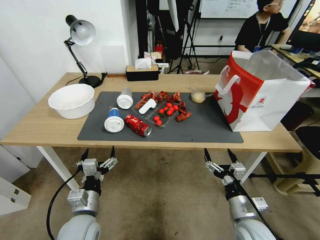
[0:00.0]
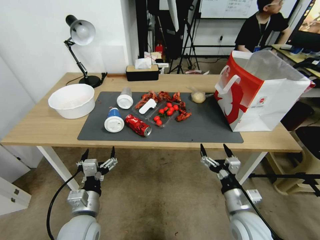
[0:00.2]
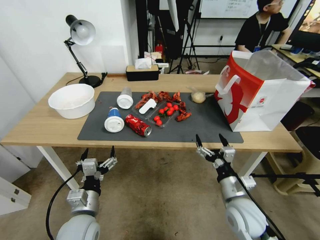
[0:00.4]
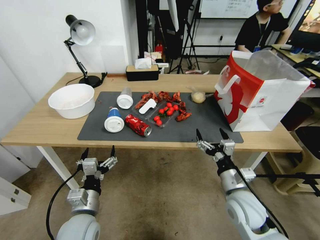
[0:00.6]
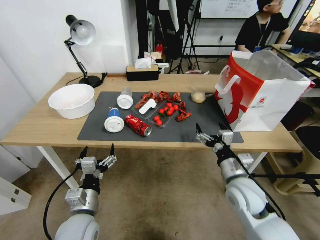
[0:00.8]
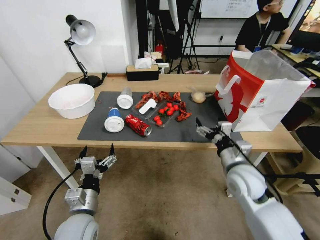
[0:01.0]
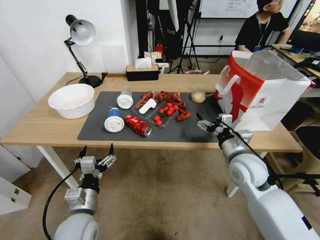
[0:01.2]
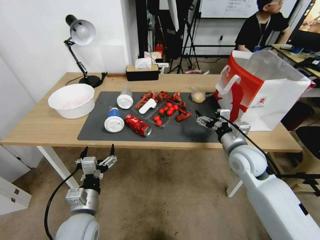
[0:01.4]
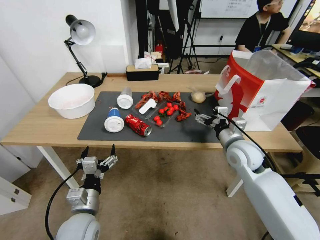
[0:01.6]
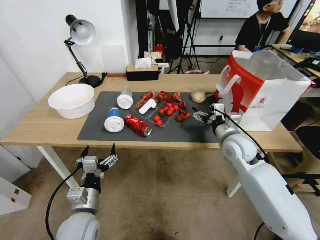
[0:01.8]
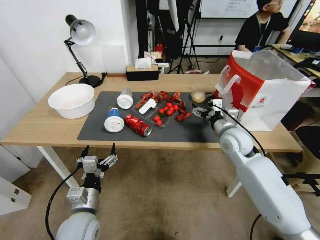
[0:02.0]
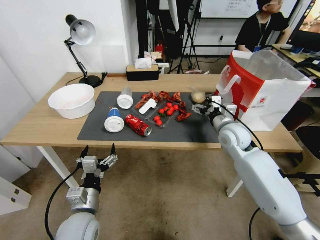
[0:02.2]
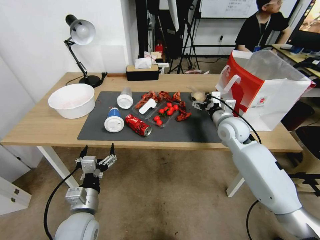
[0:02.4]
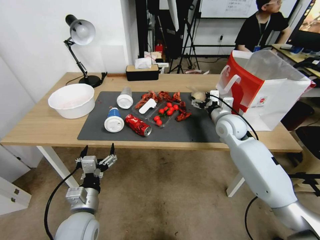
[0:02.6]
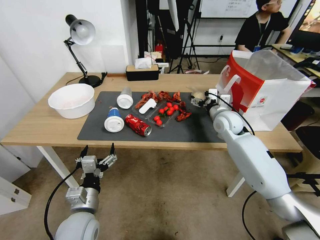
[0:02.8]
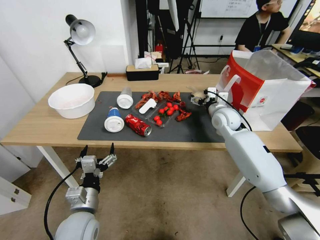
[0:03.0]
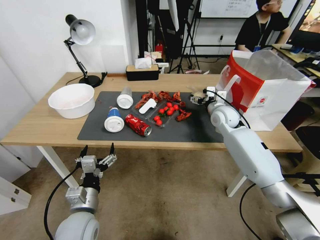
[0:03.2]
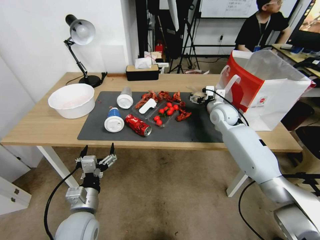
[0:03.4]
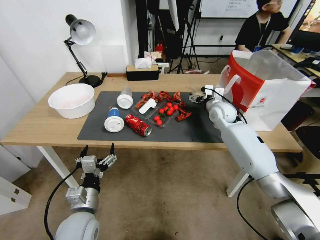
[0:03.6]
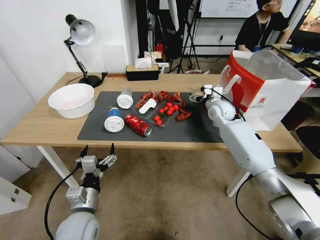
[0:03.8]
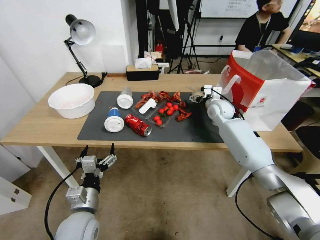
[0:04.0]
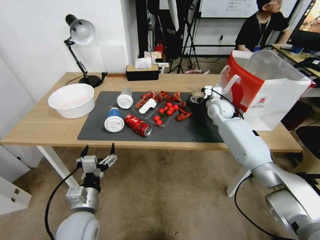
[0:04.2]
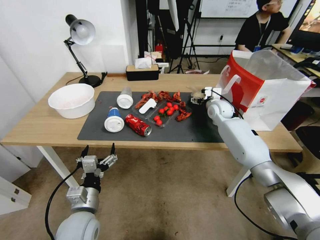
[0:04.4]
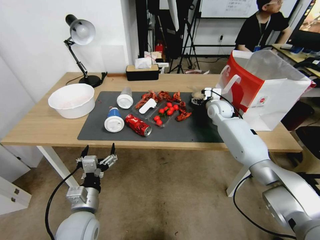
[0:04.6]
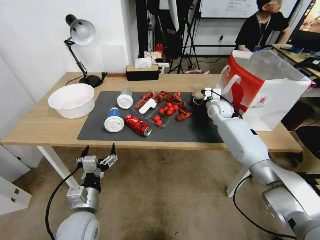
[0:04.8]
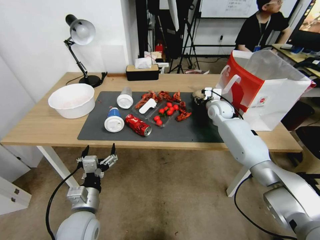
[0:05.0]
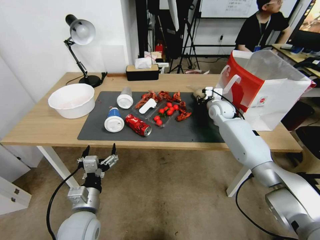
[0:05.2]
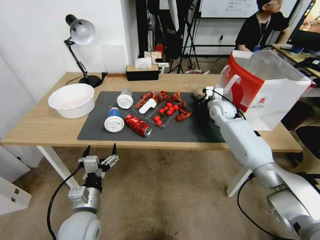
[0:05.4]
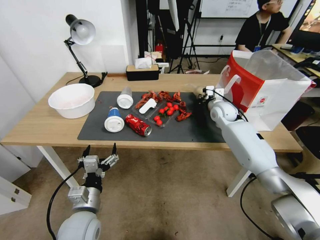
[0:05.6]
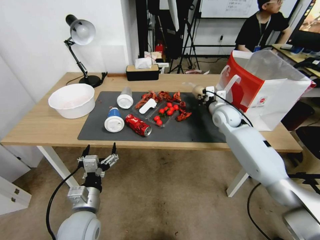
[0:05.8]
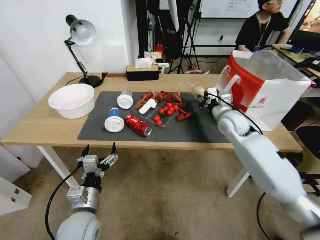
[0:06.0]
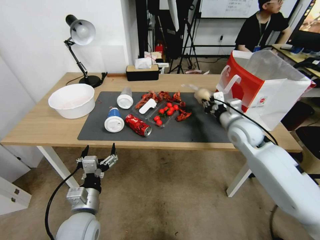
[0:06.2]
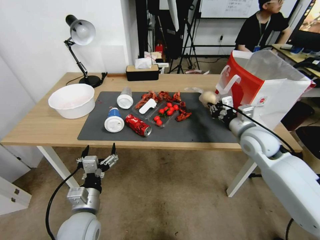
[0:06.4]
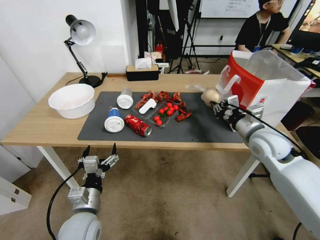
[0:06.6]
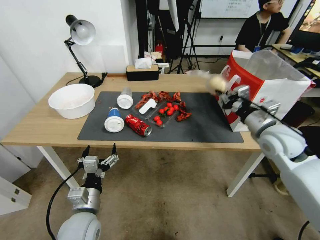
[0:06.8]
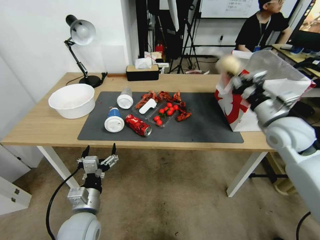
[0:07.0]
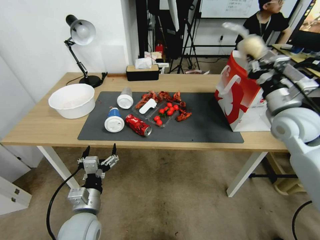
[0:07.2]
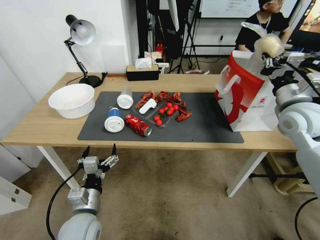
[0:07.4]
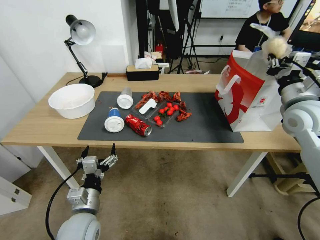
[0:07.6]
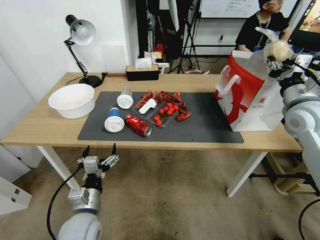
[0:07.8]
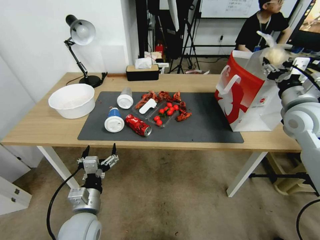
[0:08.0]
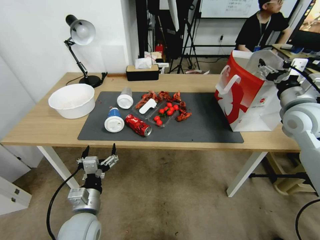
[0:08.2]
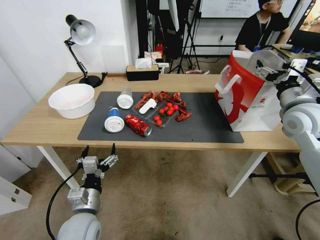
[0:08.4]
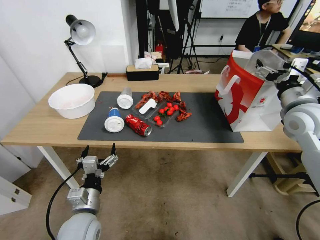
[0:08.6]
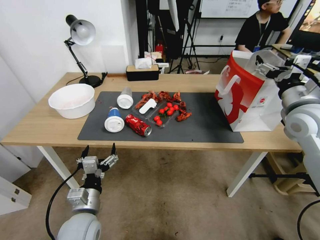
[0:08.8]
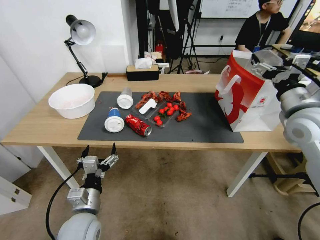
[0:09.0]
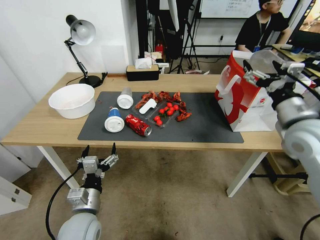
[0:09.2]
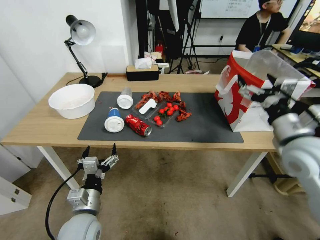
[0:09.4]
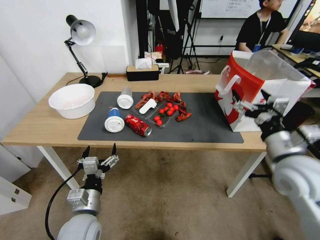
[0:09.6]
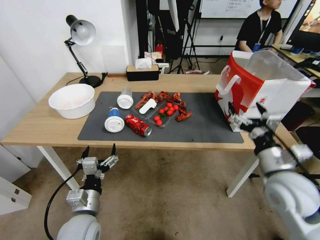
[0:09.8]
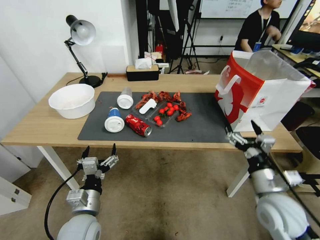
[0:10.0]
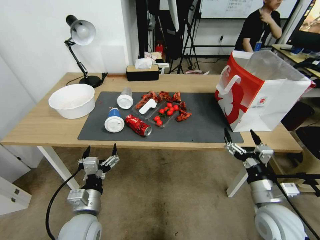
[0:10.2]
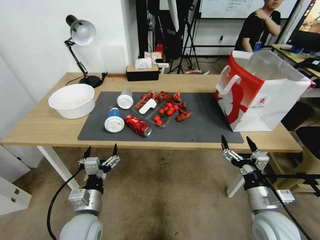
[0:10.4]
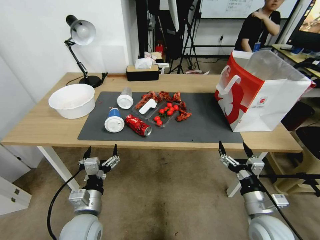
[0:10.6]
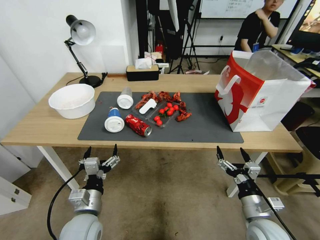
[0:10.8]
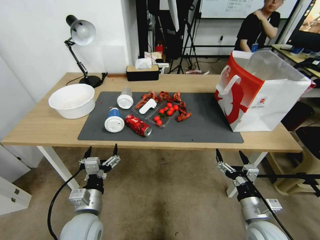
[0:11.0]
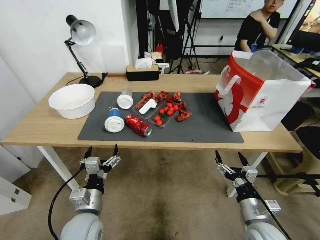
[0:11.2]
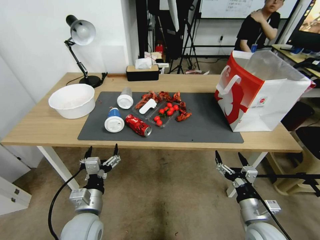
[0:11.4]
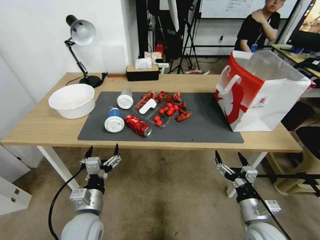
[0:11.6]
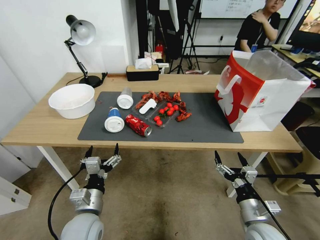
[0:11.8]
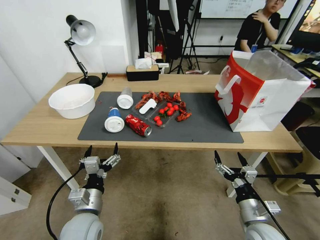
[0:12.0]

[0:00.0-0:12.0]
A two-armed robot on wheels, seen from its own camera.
0:00.0 to 0:01.6: The right gripper is displaced forward and upward by some 25 cm.
0:01.6 to 0:03.0: The right gripper is displaced forward by approximately 10 cm.
0:03.0 to 0:04.4: The right gripper heads forward, covering about 10 cm.
0:04.4 to 0:06.0: The right gripper closes up.
0:06.0 to 0:07.6: The right gripper shifts some 25 cm backward, upward and to the right.
0:07.6 to 0:09.0: The right gripper opens its fingers.
0:09.0 to 0:10.4: The right gripper moves downward and backward, roughly 30 cm.
0:10.4 to 0:12.0: The right gripper moves downward, about 5 cm.

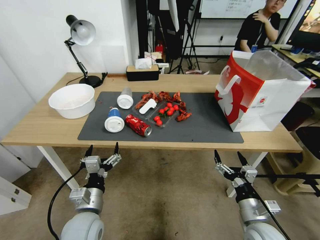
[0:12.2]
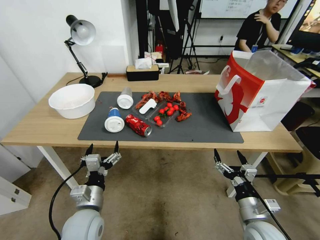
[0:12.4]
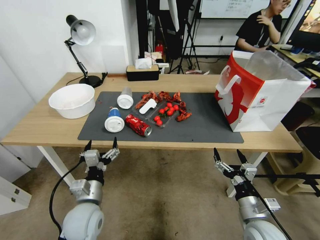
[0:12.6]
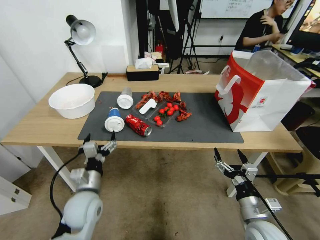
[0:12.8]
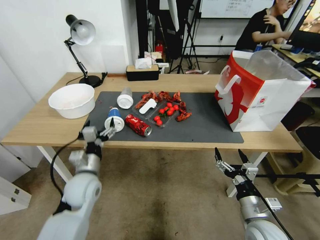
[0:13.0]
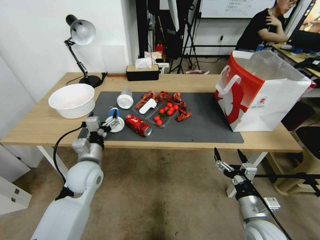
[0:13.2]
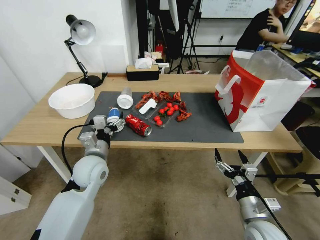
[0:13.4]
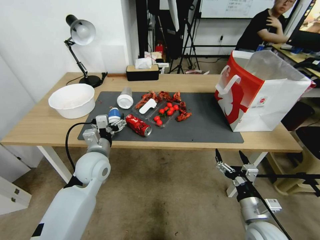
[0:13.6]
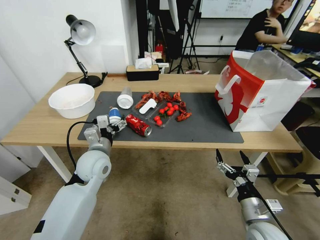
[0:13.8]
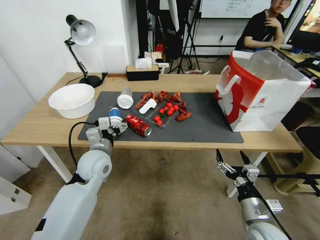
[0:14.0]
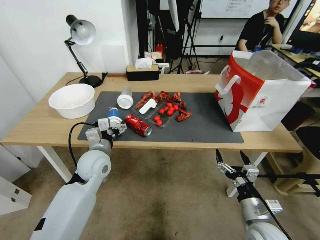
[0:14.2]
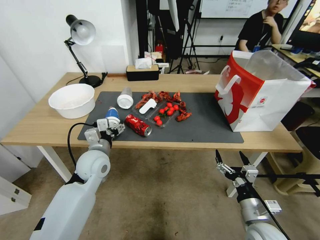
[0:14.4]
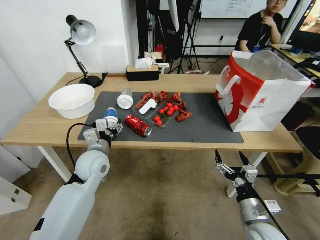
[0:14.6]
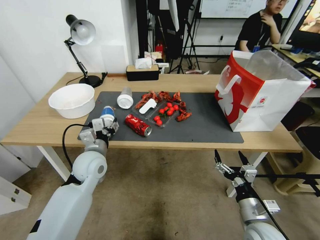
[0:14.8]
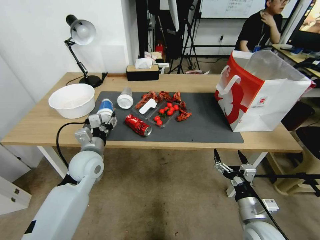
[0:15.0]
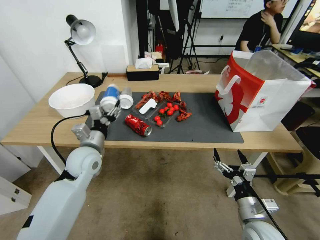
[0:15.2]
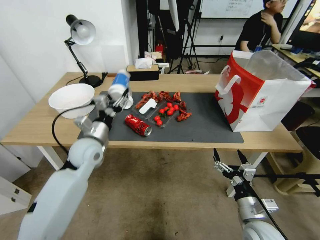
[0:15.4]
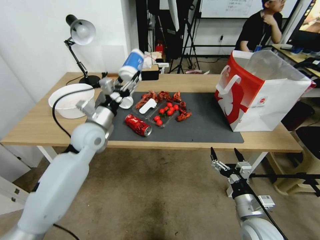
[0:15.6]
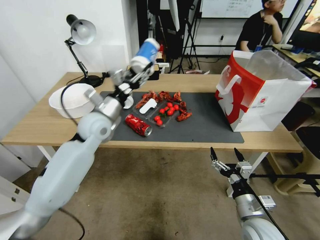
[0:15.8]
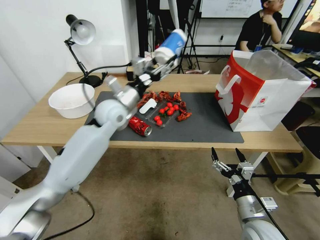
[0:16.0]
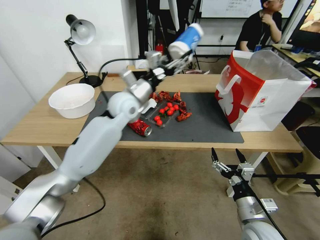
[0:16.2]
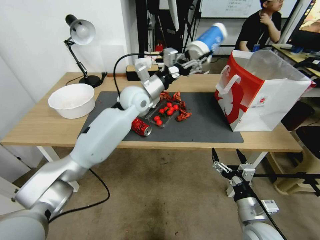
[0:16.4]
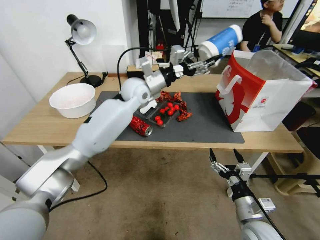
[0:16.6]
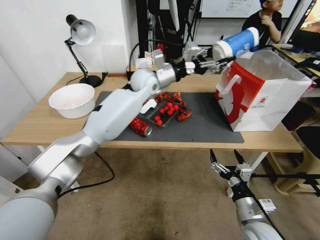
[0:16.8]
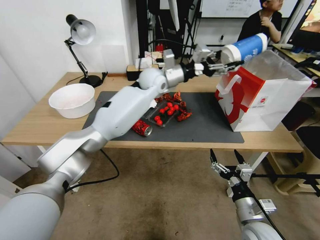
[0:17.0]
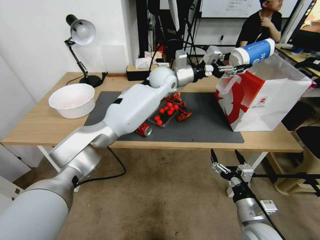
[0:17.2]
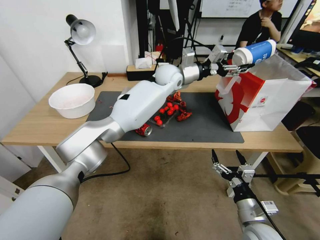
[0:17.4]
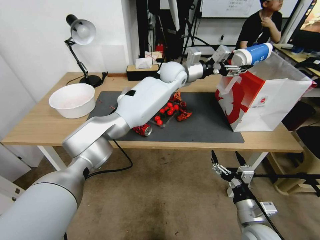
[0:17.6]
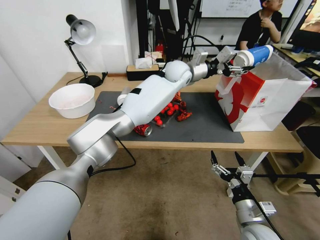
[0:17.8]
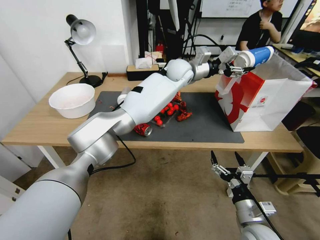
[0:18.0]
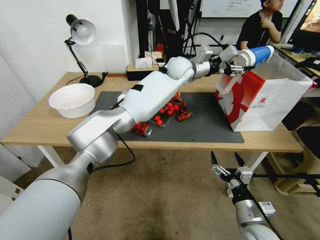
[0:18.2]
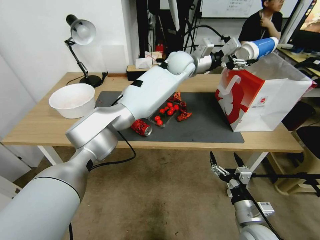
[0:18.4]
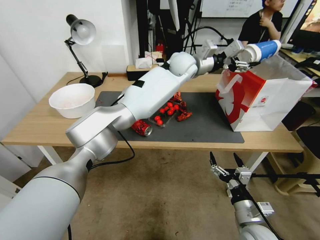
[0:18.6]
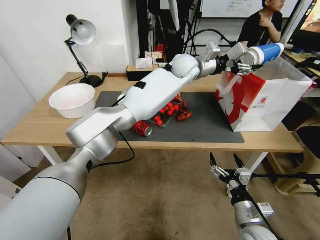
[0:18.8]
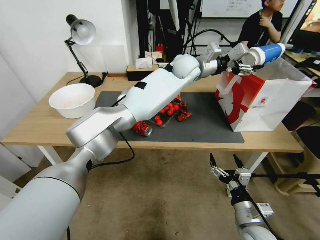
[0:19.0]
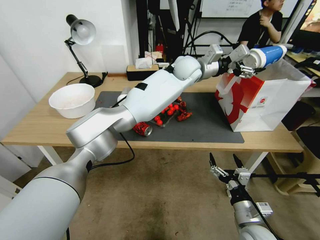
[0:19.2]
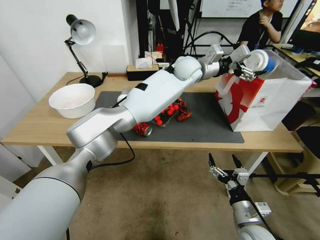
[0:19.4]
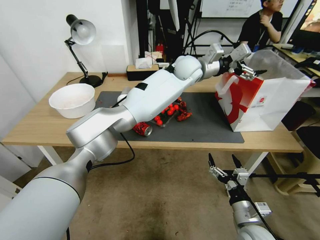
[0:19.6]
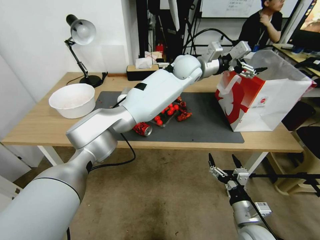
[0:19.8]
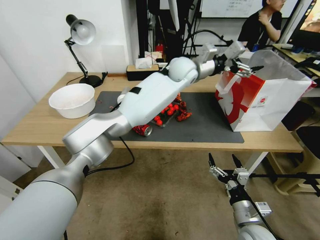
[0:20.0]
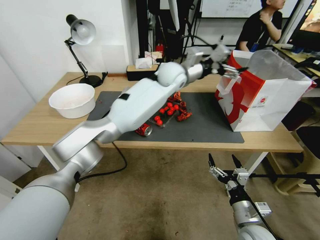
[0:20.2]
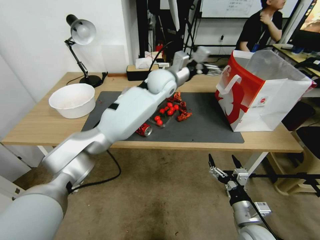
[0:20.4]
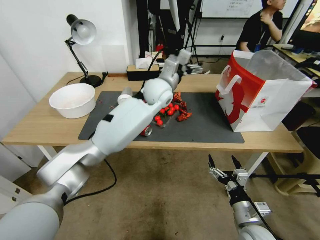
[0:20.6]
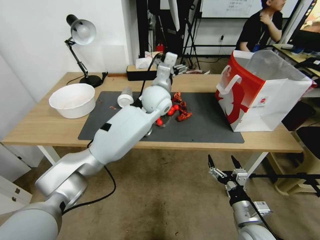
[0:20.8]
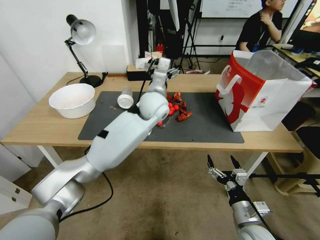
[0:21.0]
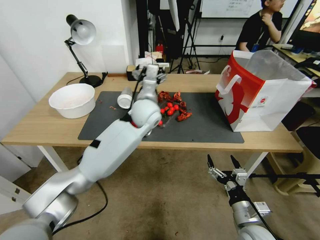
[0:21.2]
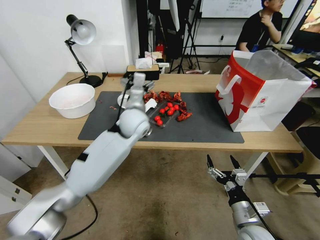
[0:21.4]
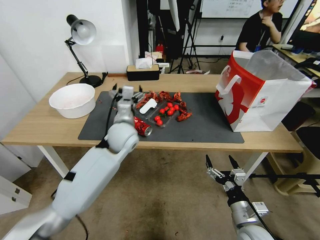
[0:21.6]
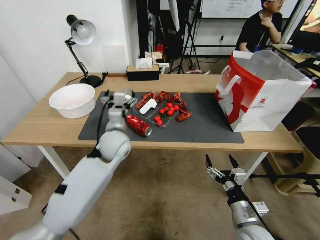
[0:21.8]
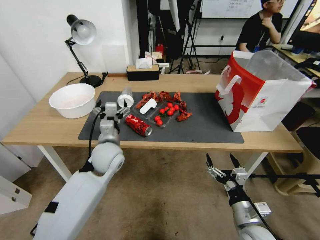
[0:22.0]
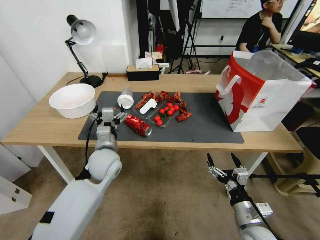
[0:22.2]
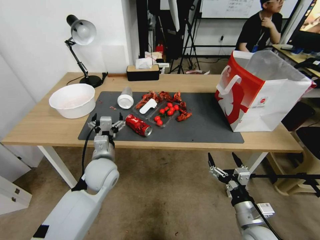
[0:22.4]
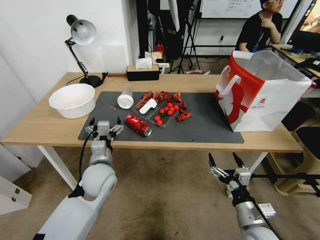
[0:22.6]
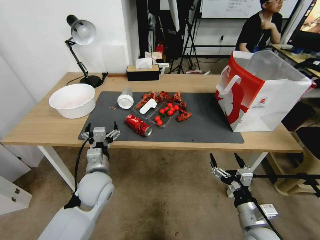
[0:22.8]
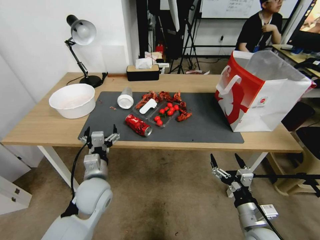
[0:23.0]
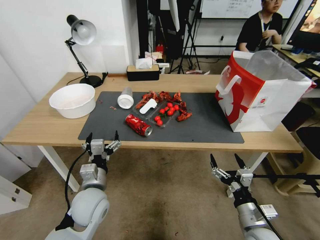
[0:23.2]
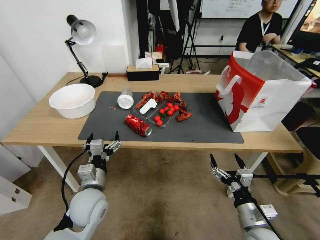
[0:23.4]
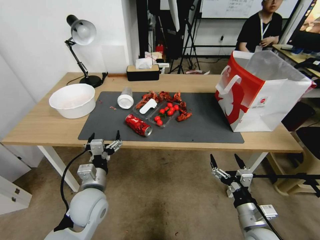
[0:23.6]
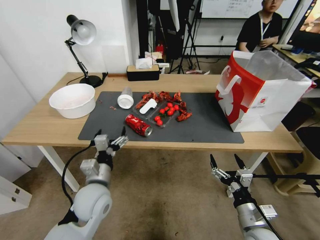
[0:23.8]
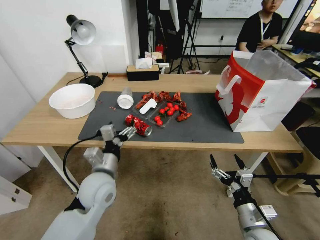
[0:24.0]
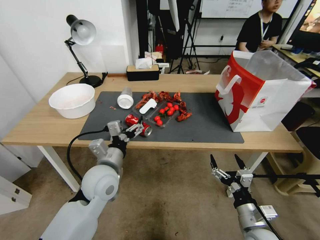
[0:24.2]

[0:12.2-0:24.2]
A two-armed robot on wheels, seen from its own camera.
0:12.2 to 0:13.8: The left gripper shifts roughly 15 cm forward and upward.
0:13.8 to 0:15.2: The left gripper closes.
0:15.2 to 0:16.6: The left gripper goes roughly 30 cm forward, to the right and upward.
0:16.6 to 0:18.2: The left gripper heads to the right and forward, covering about 15 cm.
0:18.2 to 0:19.8: The left gripper opens up.
0:19.8 to 0:21.2: The left gripper is displaced to the left, backward and downward by approximately 20 cm.
0:21.2 to 0:22.6: The left gripper is displaced backward, to the left and downward by roughly 20 cm.
0:22.6 to 0:24.2: The left gripper goes about 5 cm backward.
